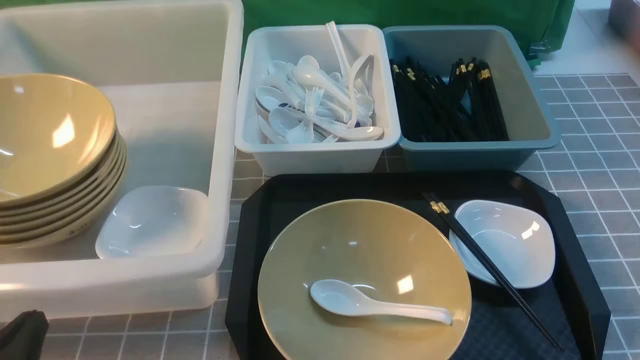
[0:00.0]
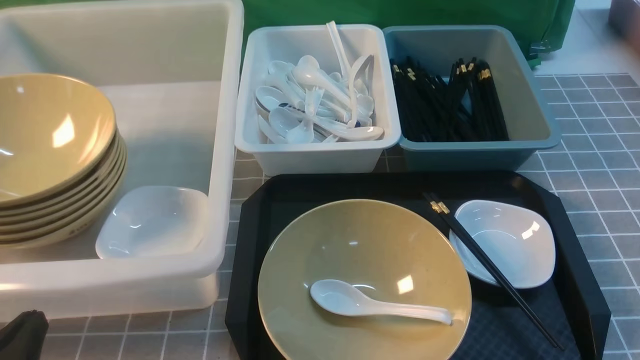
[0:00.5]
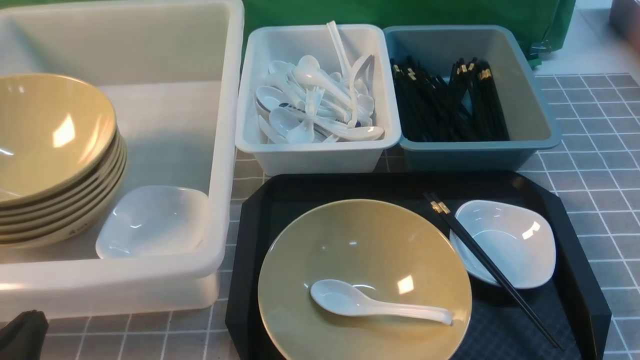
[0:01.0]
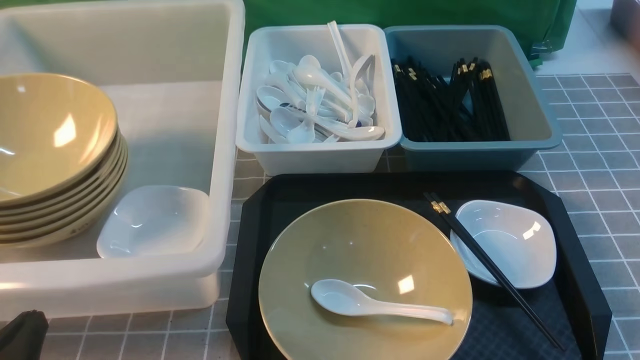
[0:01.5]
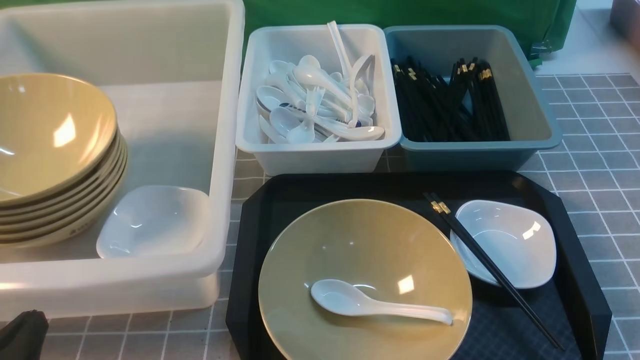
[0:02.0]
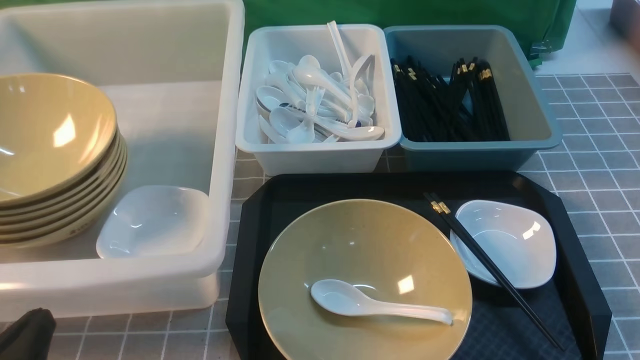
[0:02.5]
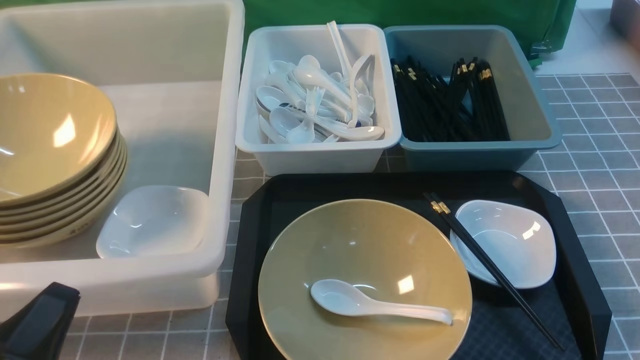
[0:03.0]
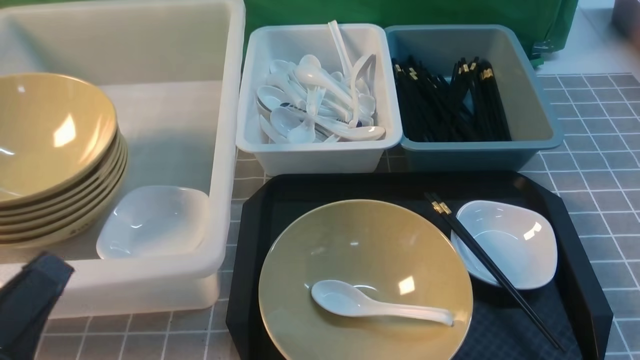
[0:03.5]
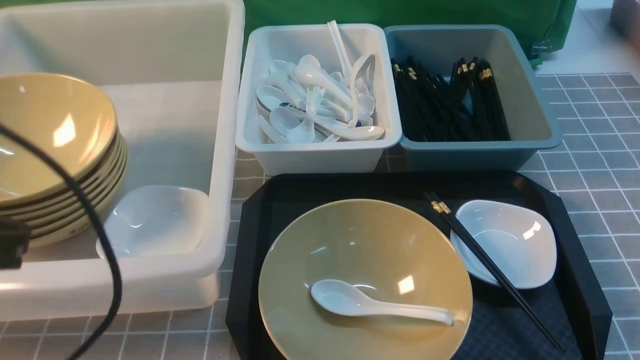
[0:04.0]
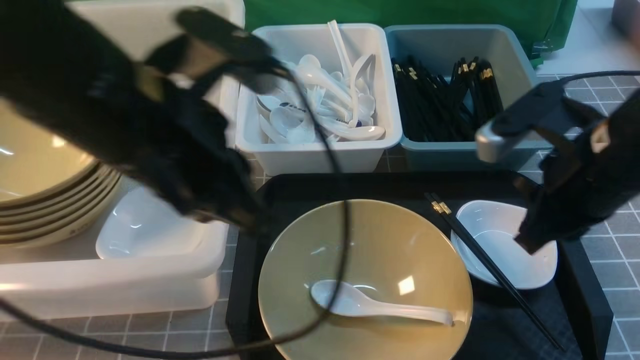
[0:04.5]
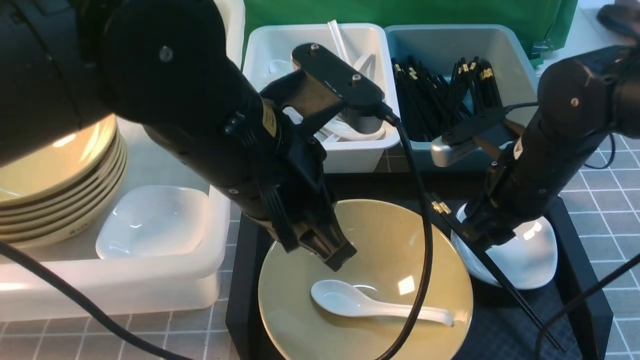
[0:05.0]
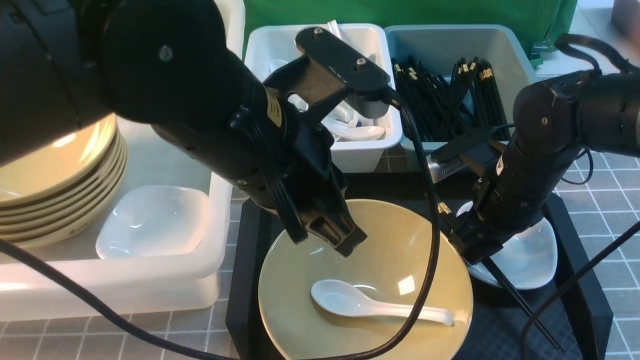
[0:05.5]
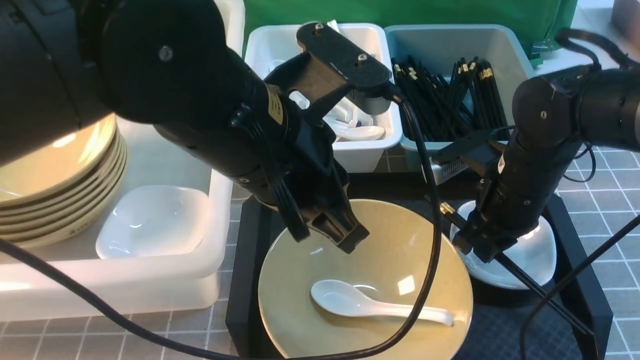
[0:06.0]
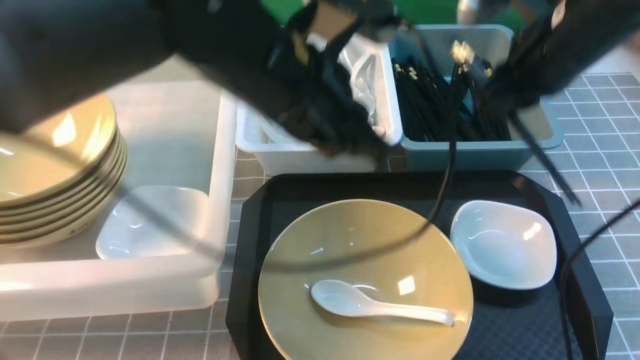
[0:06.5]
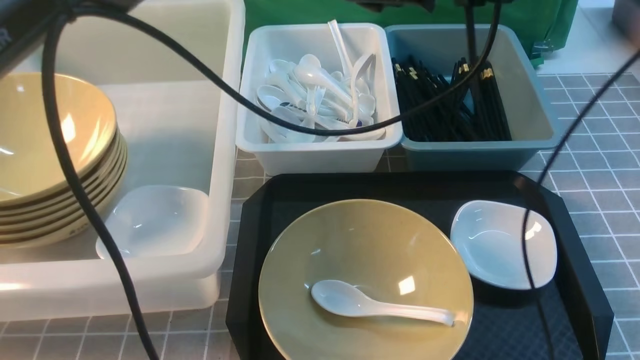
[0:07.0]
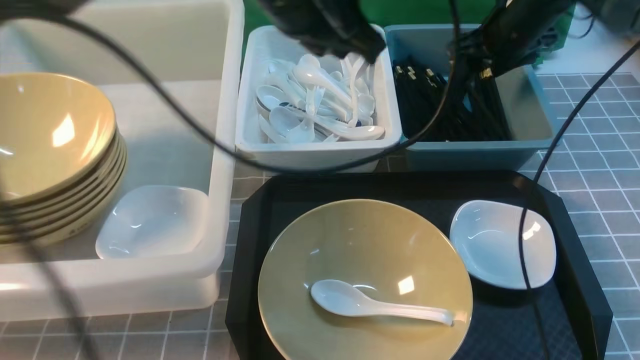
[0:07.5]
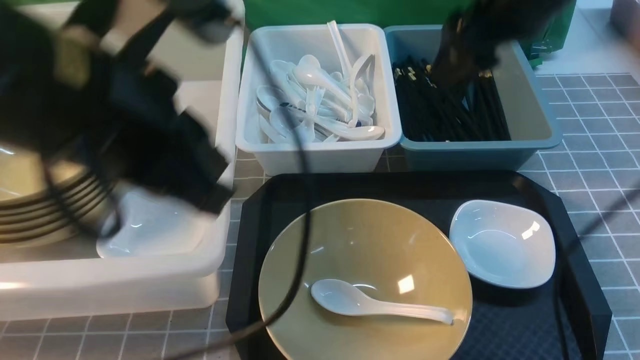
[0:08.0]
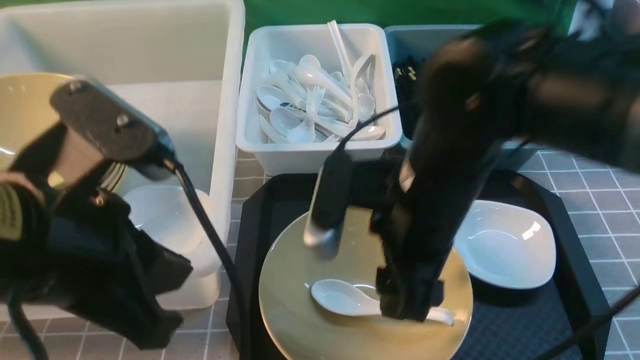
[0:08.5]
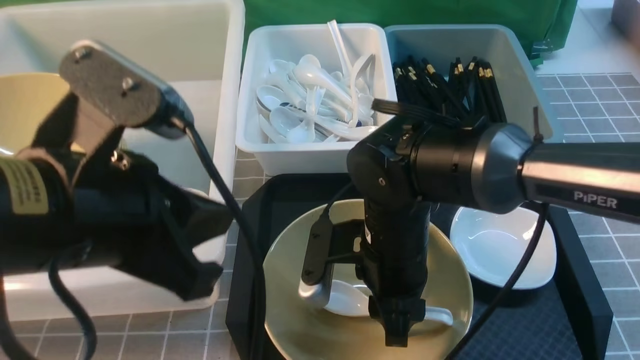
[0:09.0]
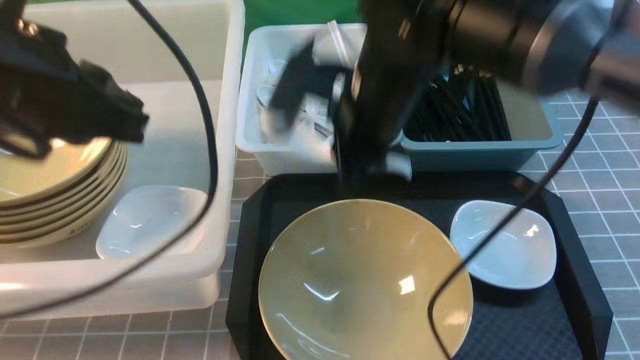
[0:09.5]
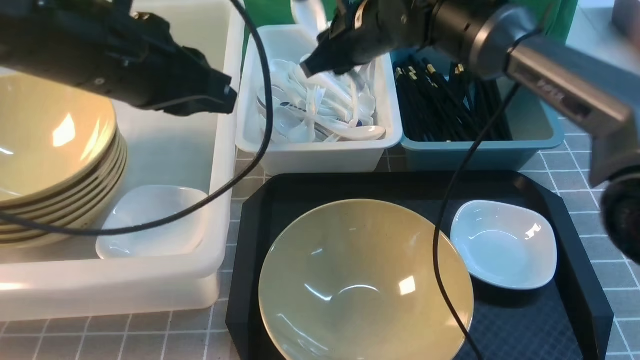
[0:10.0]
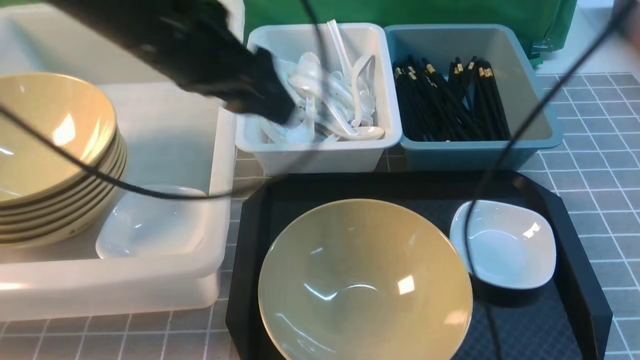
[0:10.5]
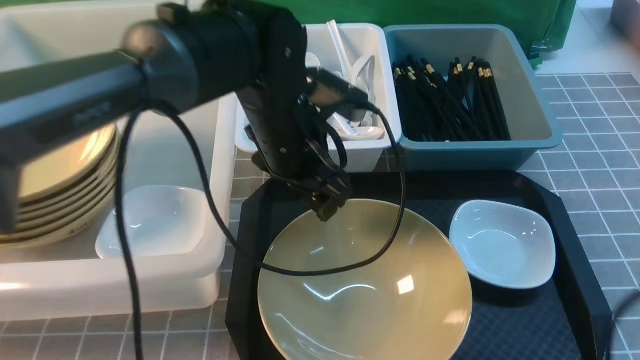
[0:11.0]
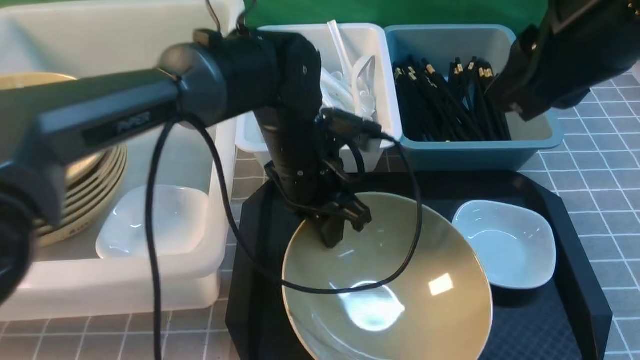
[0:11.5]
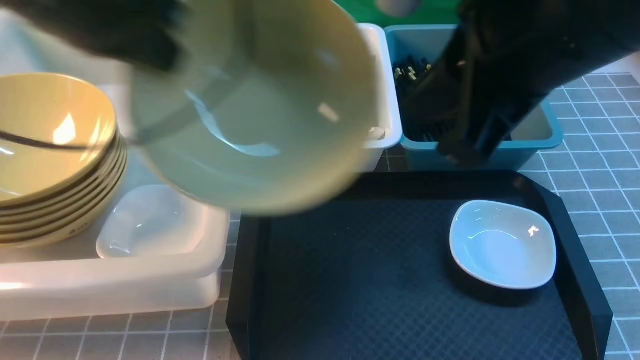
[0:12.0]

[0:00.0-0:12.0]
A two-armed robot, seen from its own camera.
Task of the whole recording: on grey table put chopsticks spoon bowls plates into blue grey white boxes.
Step, 0:00.0 to 0:06.0: use the right arm to grab the chopsticks.
Step, 0:06.5 to 0:07.5: use the right arm to put the chopsticks into the small storage box on the right.
Step, 0:08.0 to 0:09.0: use the right arm to grab the soup spoon in the middle.
Step, 0:09.5 to 0:10.0: use the right arm to put the soup spoon into the small storage box in the middle.
Step, 0:10.5 to 0:11.5: use the left arm to grab the yellow noodle bowl on the left.
0:02.0 to 0:04.0: The left gripper goes approximately 20 cm upward.
0:04.0 to 0:06.0: The right gripper goes some 25 cm forward, downward and to the left, and opens and closes again. The left gripper goes some 20 cm to the right and forward.
0:06.0 to 0:08.0: The left gripper moves to the left, roughly 10 cm, and reaches about 15 cm forward, then returns. The right gripper moves upward, some 15 cm, reaches roughly 20 cm forward, then returns, and opens.
0:08.0 to 0:10.0: The right gripper travels forward, to the left and downward by some 15 cm, and closes, then opens again, while the left gripper is displaced forward by about 10 cm.
0:10.0 to 0:12.0: The right gripper is displaced backward and upward by some 30 cm, and closes its fingers. Meanwhile the left gripper reaches approximately 15 cm to the right, then returns, and opens, then closes again.

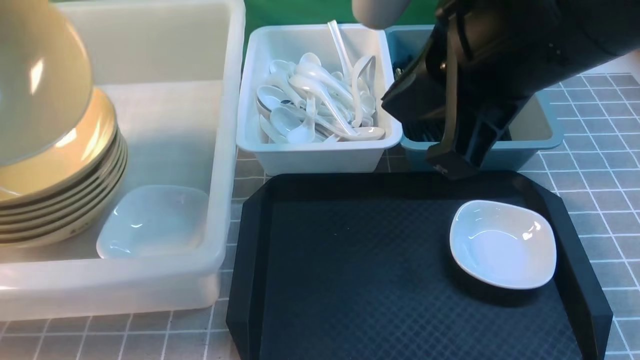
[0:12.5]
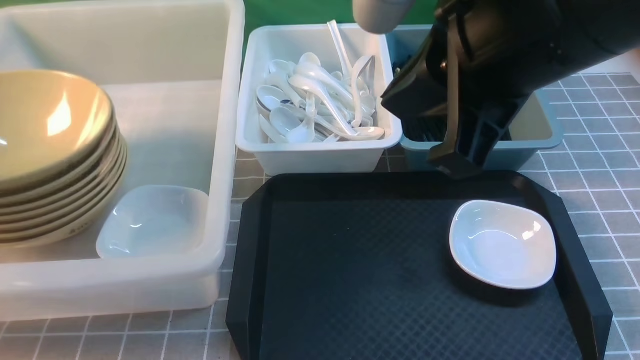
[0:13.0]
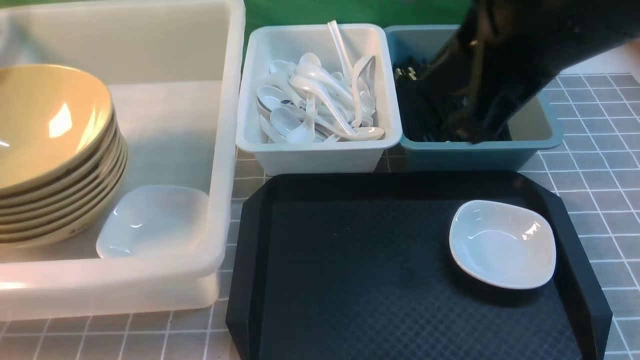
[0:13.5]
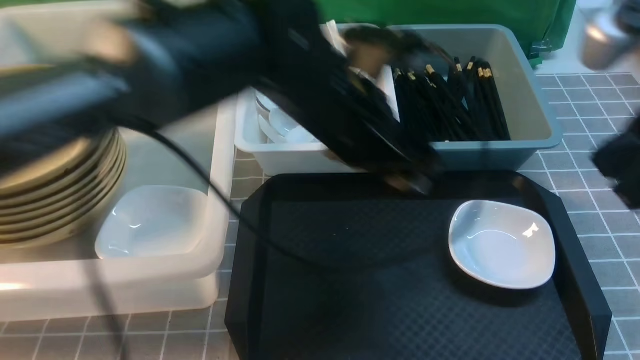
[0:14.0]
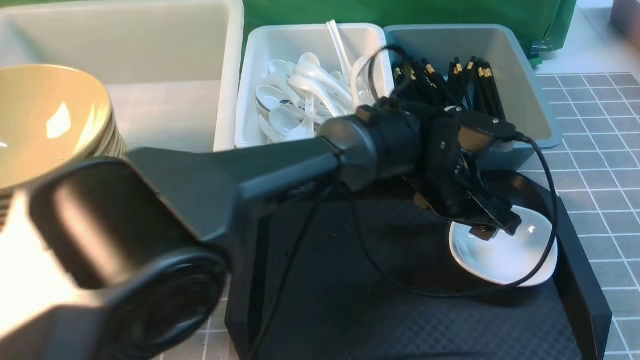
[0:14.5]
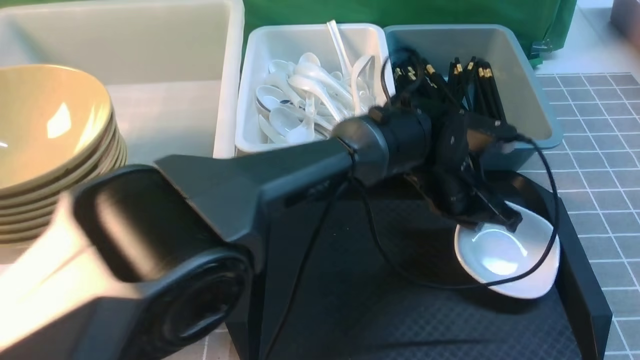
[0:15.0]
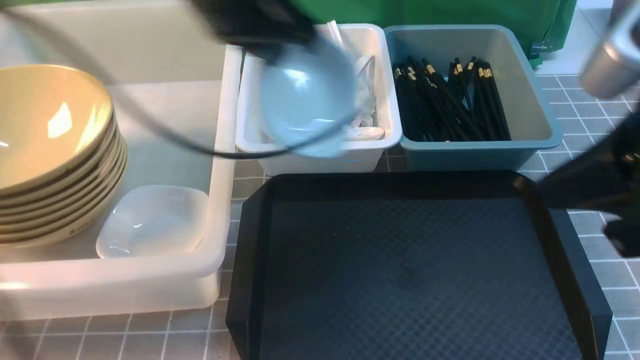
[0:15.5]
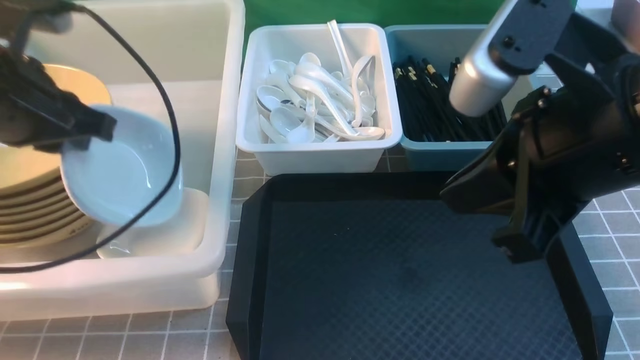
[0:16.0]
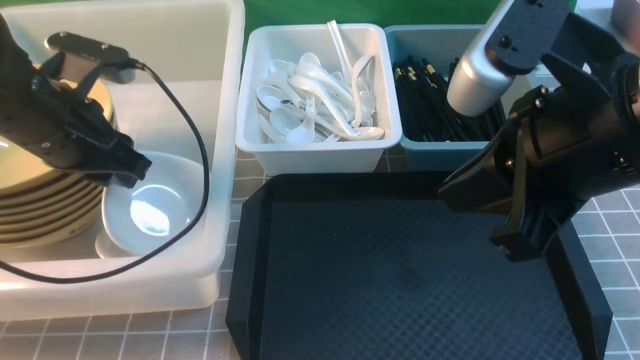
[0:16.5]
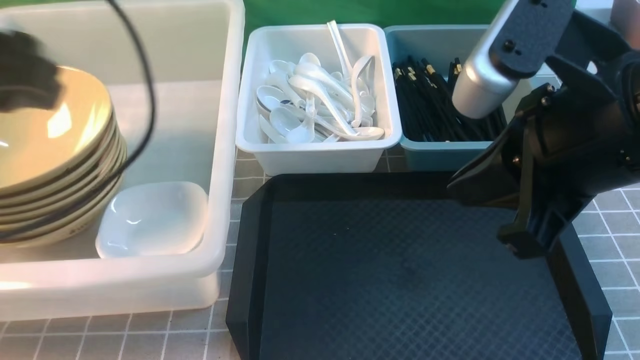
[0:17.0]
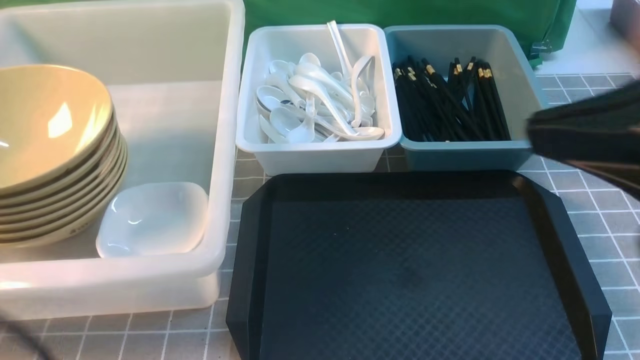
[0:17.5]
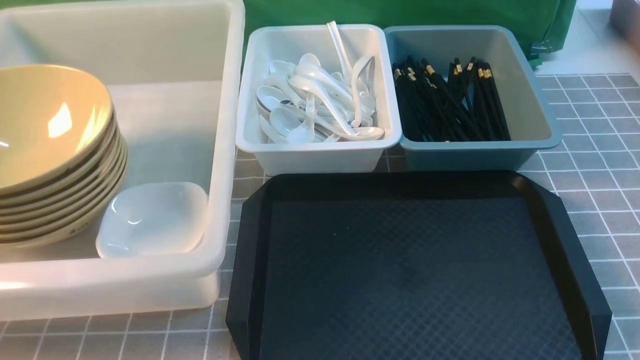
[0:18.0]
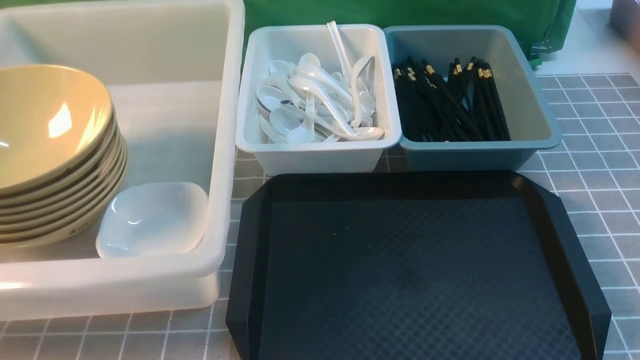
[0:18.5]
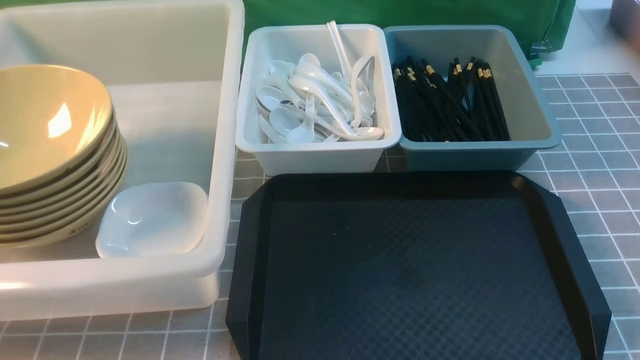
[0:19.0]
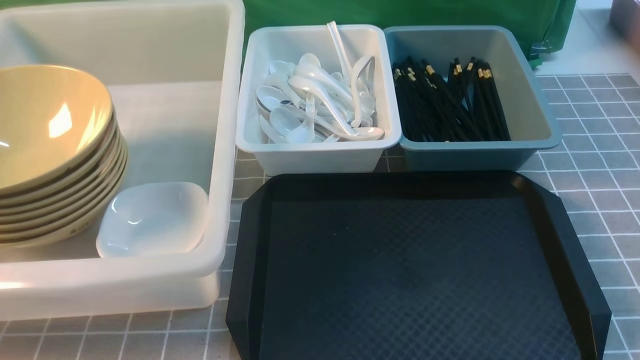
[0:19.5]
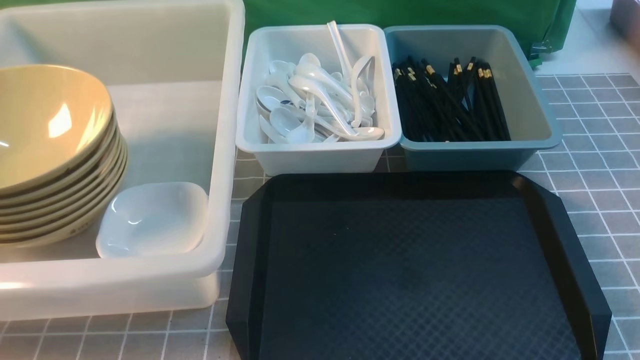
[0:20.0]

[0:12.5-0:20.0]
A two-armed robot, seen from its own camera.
Task of the whole recording: on grey table put chopsticks spoon bowls plates into blue grey white boxes.
Step, 0:13.5 to 0:15.0: use the left arm to grab the plate.
Step, 0:15.5 to 0:16.5: use the left arm to put the plate into the large storage box on the left.
0:12.5 to 0:14.5: The left gripper shifts approximately 50 cm to the right, and opens its fingers. The right gripper goes about 15 cm to the right and backward.
0:14.5 to 0:16.5: The left gripper is displaced to the left by some 35 cm, and closes. The right gripper shifts about 10 cm to the left and forward.
0:16.5 to 0:18.0: The right gripper heads backward and to the right, covering roughly 15 cm. The left gripper travels backward by roughly 30 cm, and closes.
